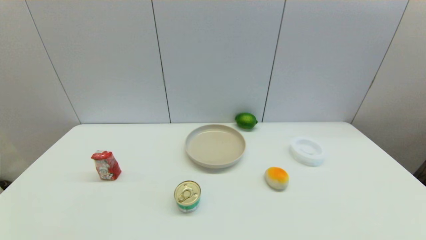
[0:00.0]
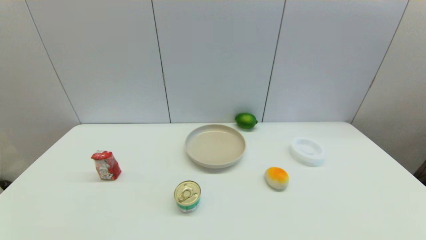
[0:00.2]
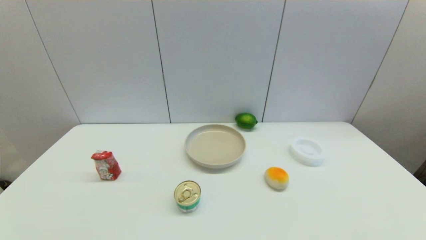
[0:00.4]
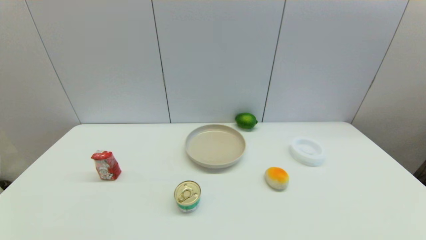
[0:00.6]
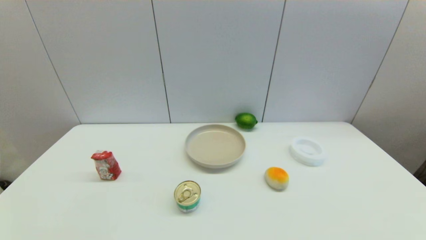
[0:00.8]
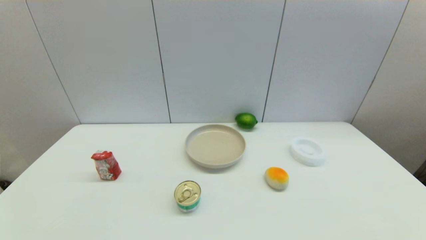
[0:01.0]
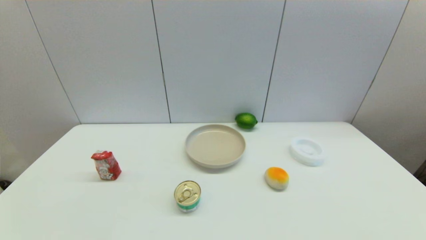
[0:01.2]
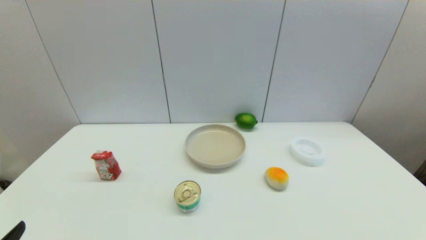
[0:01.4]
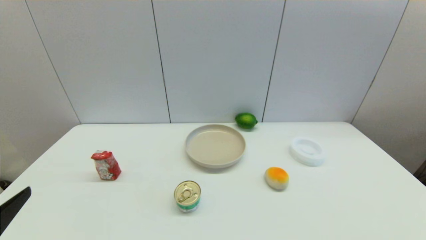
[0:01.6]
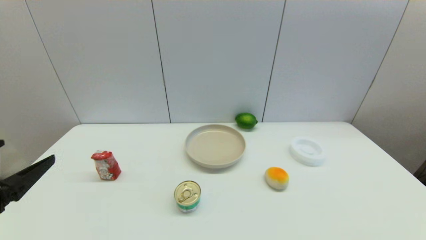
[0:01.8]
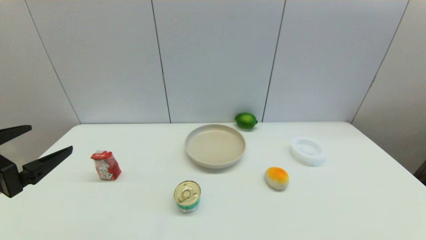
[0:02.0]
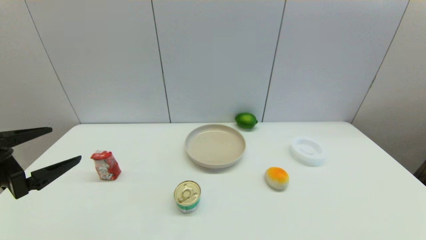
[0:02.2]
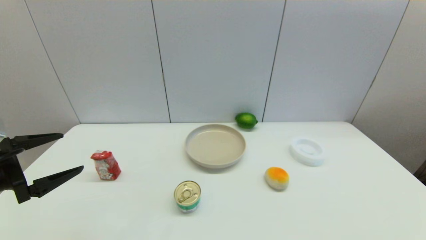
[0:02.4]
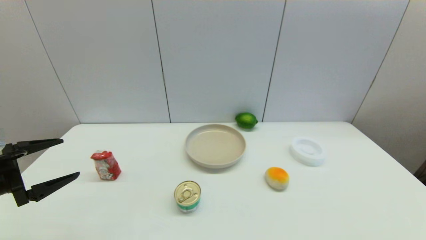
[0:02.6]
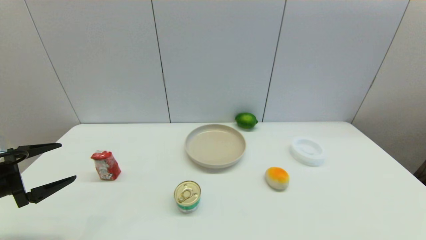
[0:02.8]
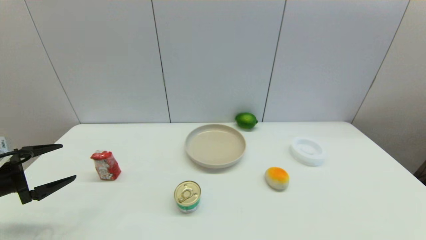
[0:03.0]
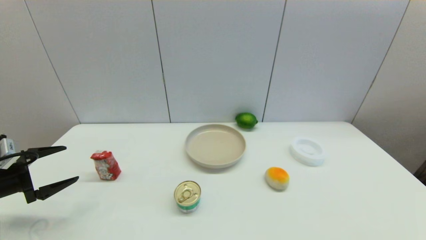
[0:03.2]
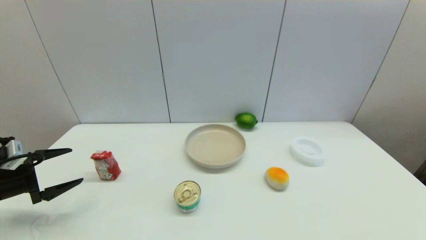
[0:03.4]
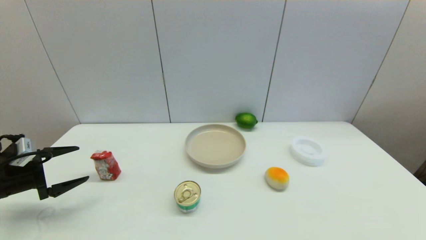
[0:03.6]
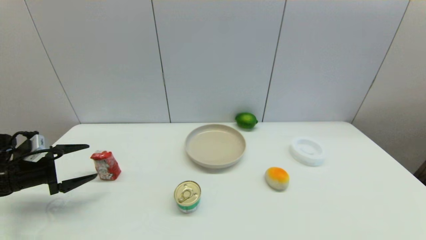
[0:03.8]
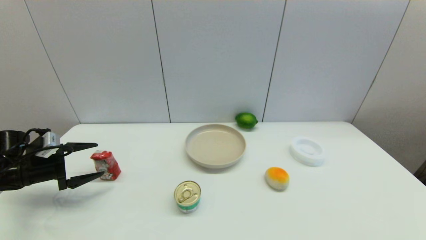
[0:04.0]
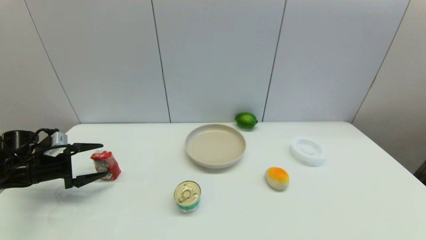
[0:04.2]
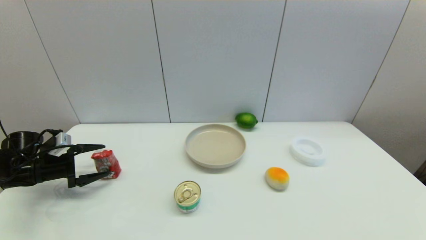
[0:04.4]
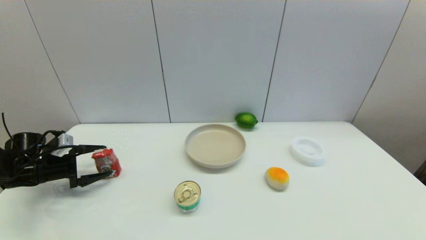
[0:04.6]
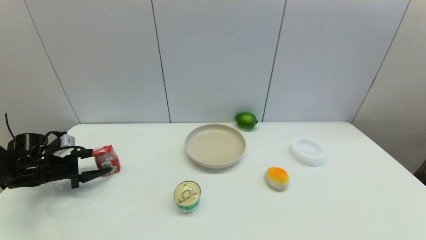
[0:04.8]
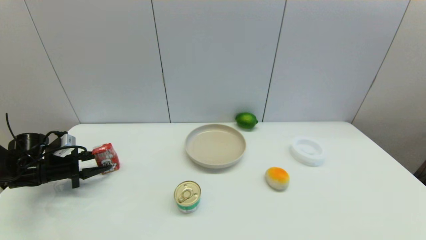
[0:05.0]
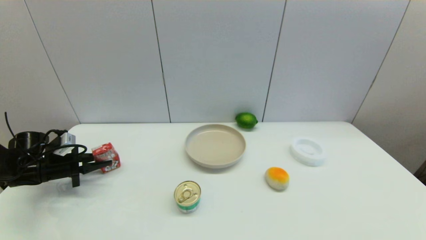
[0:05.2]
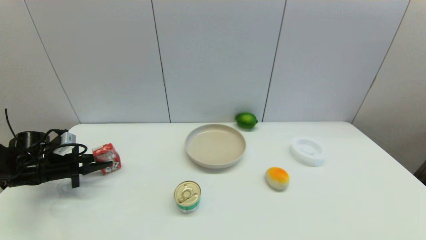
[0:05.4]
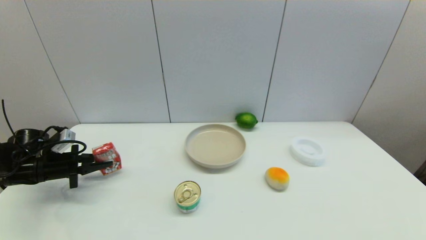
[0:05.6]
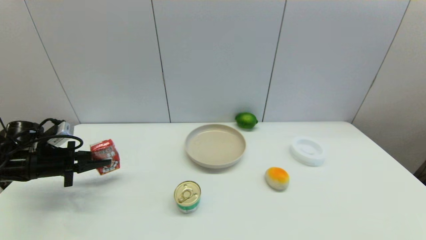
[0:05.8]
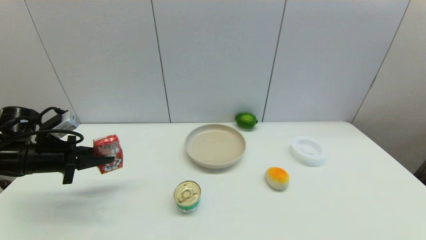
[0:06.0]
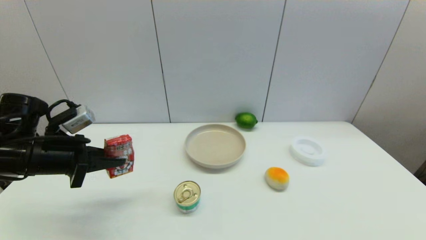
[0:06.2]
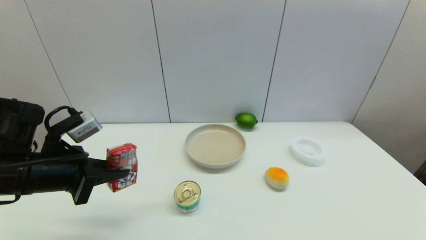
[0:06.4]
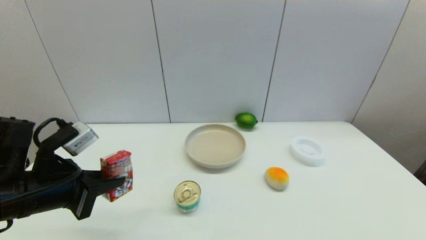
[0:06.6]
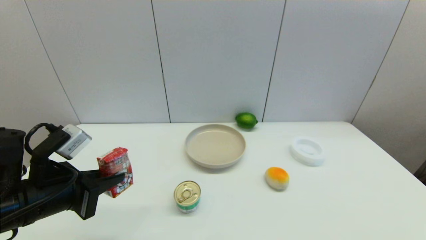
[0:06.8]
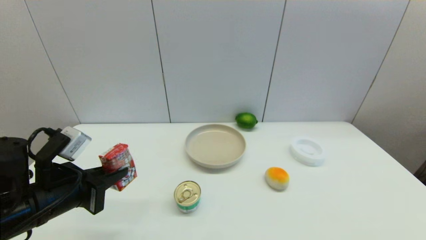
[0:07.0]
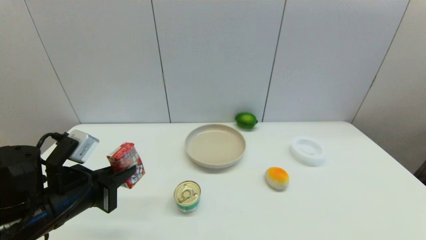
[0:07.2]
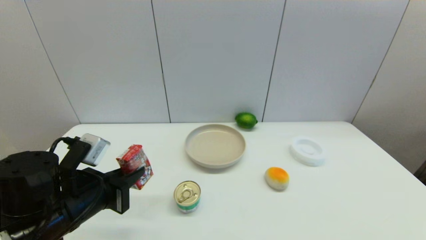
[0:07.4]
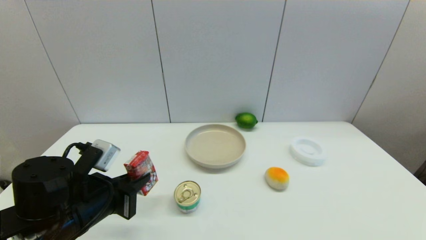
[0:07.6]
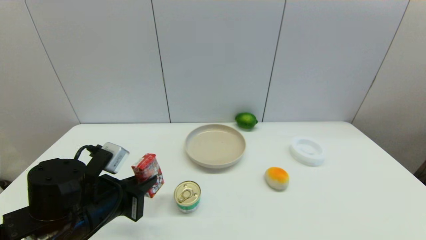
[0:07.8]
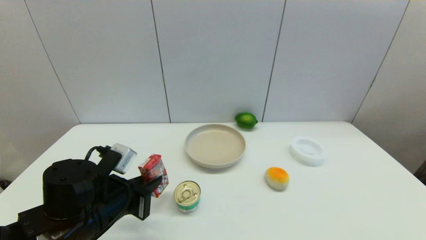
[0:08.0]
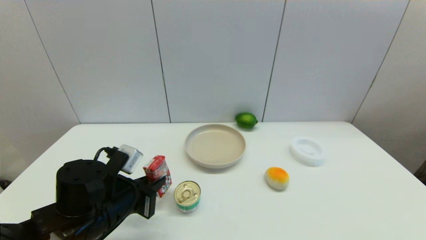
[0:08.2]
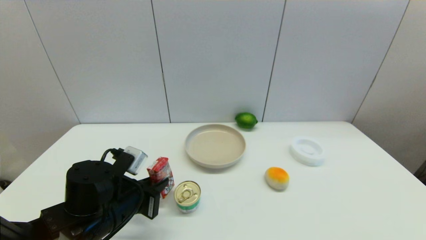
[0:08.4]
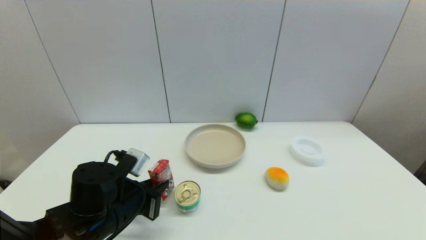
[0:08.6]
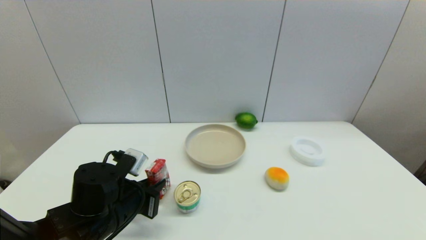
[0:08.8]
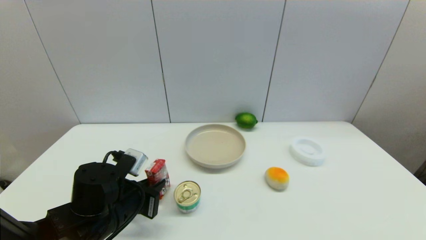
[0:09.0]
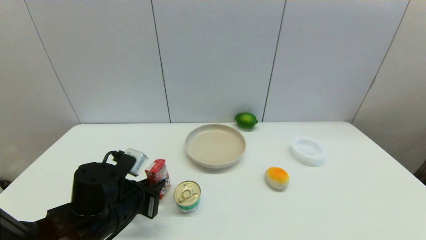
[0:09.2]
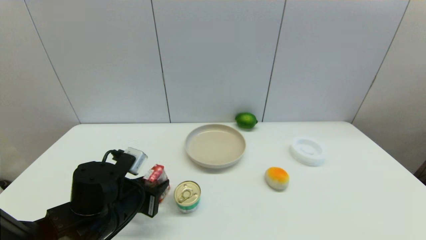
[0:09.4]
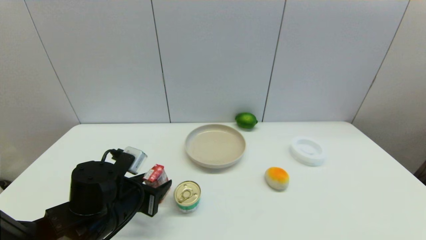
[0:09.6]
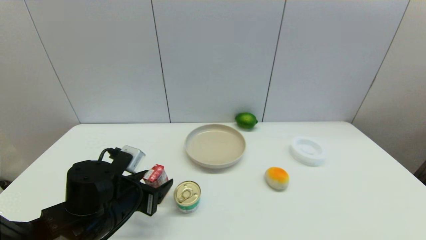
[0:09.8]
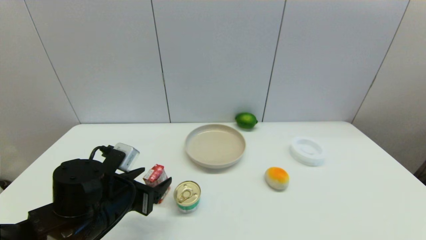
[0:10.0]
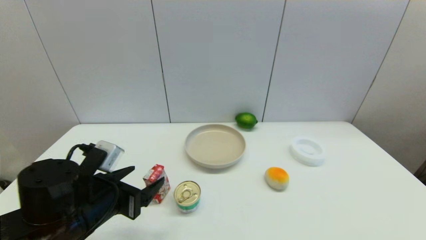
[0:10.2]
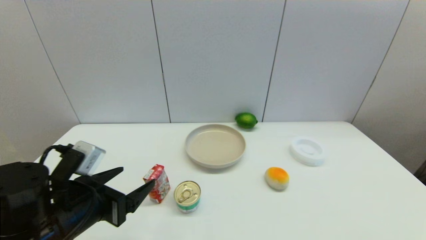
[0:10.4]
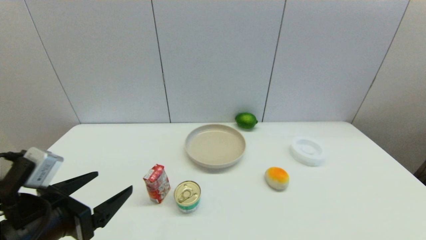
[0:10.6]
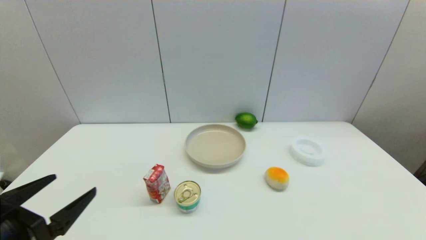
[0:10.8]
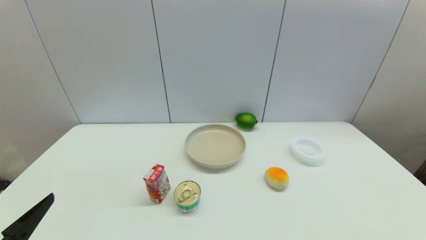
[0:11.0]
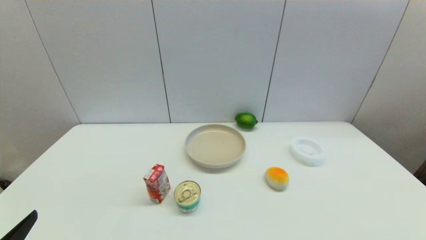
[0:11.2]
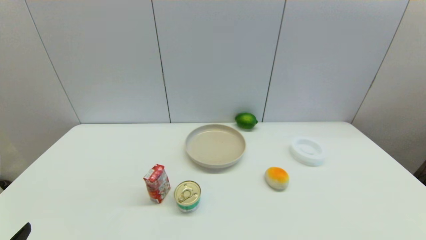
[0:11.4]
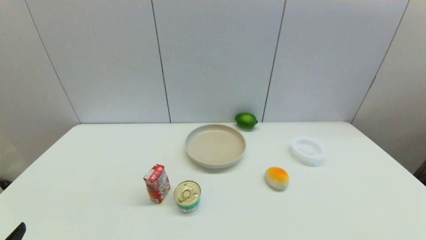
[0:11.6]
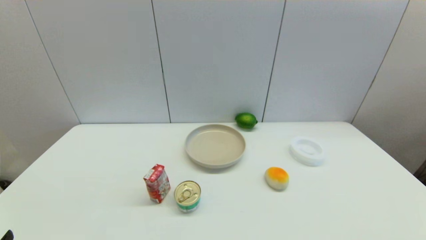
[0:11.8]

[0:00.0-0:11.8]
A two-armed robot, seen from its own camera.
Step, 0:01.4 to 0:05.4: Grasp the wangzai milk with left gripper.
Step, 0:05.8 to 0:09.6: Place the wangzai milk on the table with left gripper.
0:01.4 to 0:03.0: The left gripper moves forward and to the left, roughly 25 cm.
0:03.0 to 0:04.4: The left gripper shifts approximately 10 cm forward and downward.
0:04.4 to 0:06.0: The left gripper travels upward and to the right by some 10 cm, and closes.
0:06.0 to 0:07.4: The left gripper shifts some 15 cm to the right and backward.
0:07.4 to 0:08.8: The left gripper shifts about 5 cm downward.
0:08.8 to 0:10.4: The left gripper goes some 10 cm upward and backward, and opens up.
0:10.4 to 0:11.8: The left gripper goes some 15 cm backward and to the left.

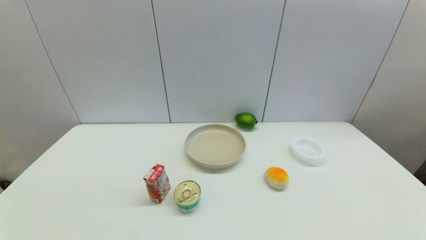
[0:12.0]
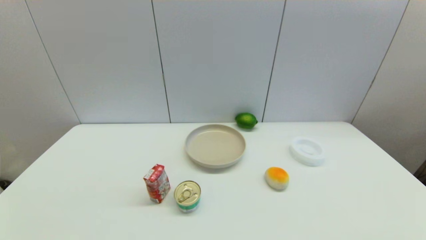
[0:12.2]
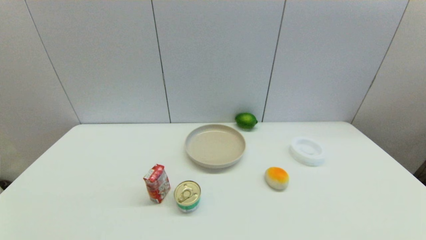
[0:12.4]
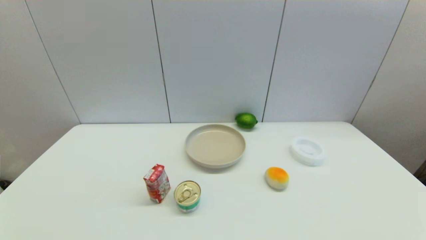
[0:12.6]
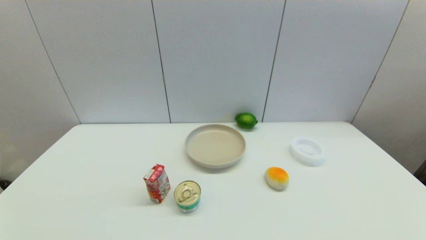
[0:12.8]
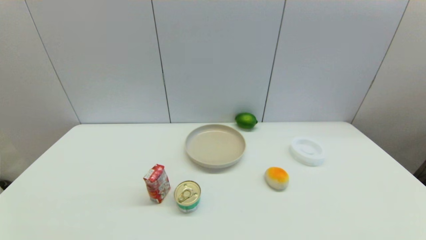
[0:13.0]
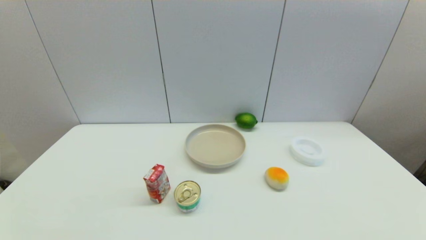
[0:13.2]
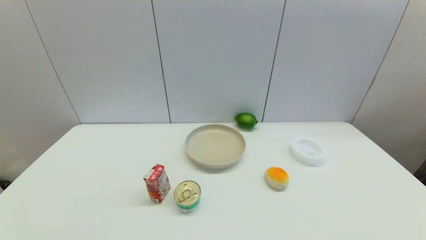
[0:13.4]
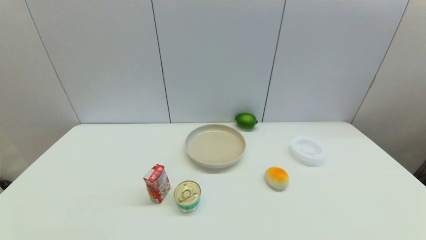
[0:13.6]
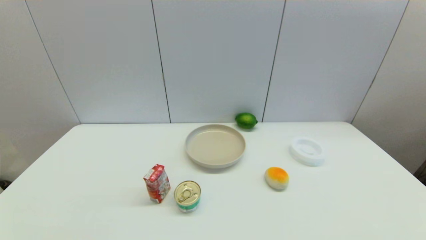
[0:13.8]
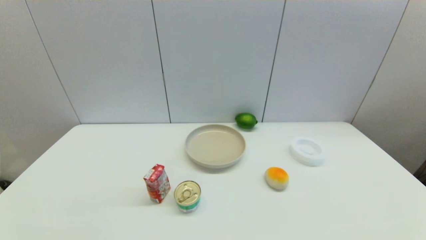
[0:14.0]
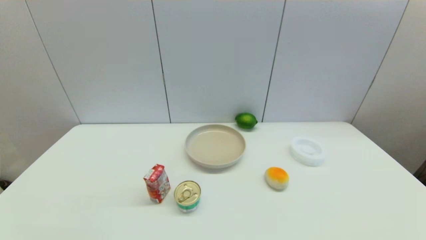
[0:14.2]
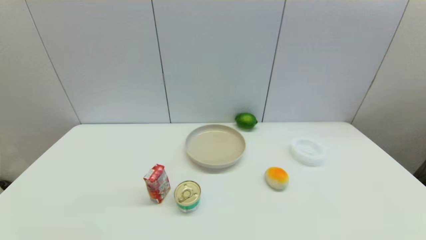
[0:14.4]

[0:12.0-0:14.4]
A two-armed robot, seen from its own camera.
0:13.2 to 0:14.4: Both grippers stay about where they are.
